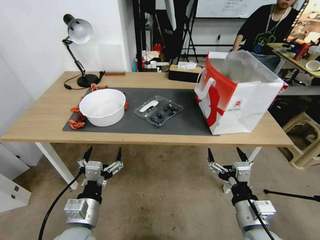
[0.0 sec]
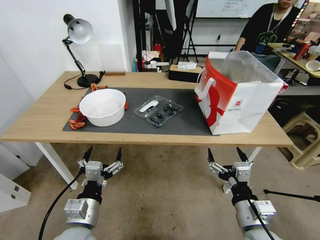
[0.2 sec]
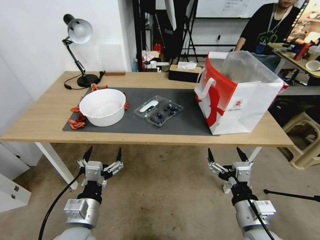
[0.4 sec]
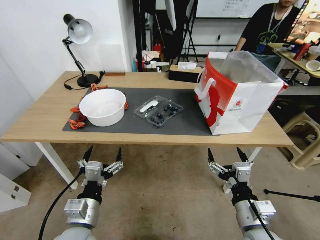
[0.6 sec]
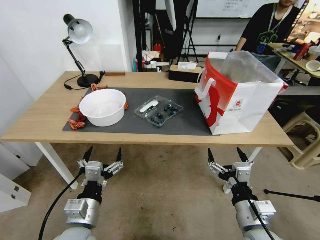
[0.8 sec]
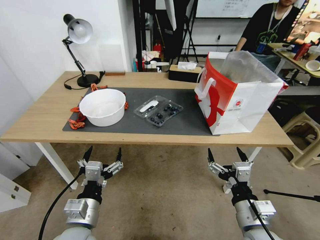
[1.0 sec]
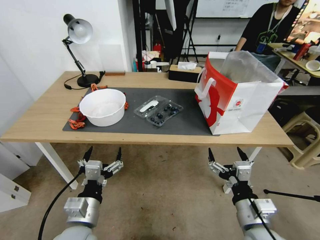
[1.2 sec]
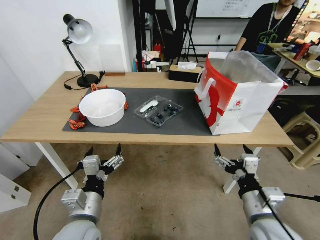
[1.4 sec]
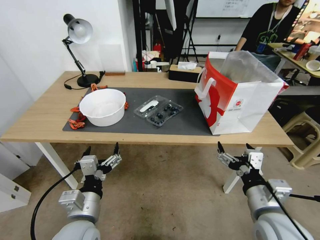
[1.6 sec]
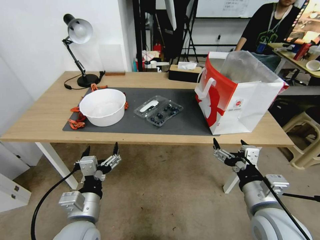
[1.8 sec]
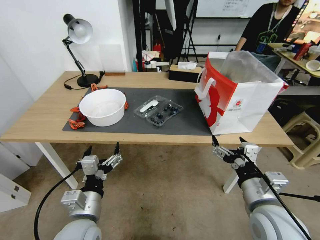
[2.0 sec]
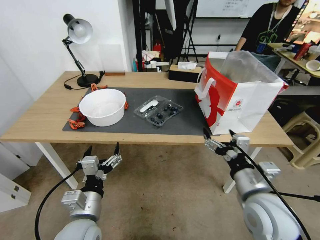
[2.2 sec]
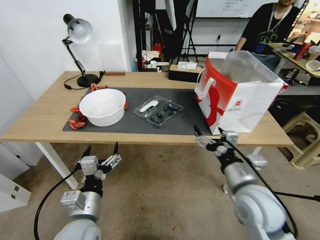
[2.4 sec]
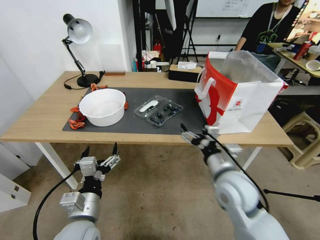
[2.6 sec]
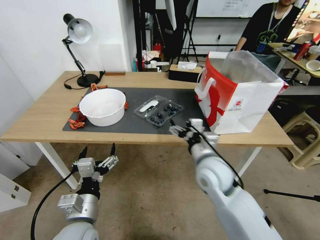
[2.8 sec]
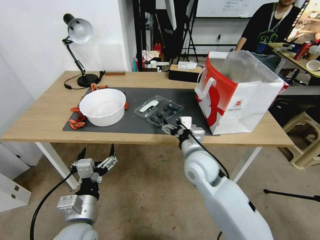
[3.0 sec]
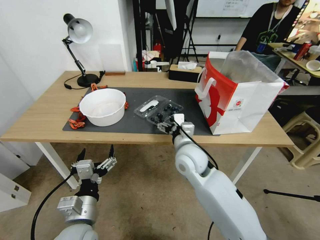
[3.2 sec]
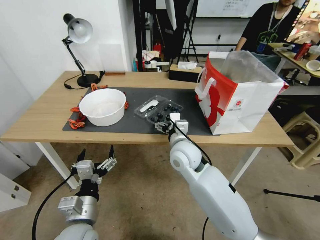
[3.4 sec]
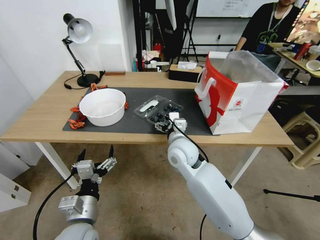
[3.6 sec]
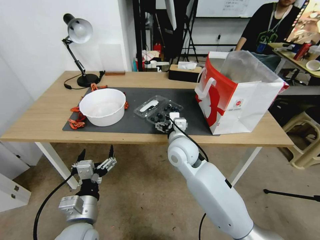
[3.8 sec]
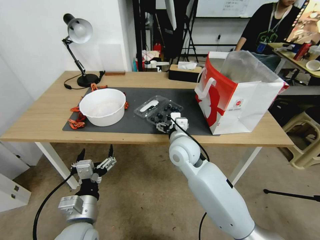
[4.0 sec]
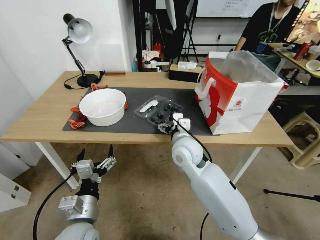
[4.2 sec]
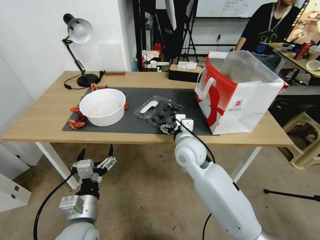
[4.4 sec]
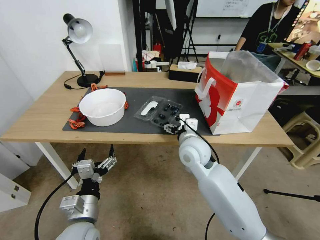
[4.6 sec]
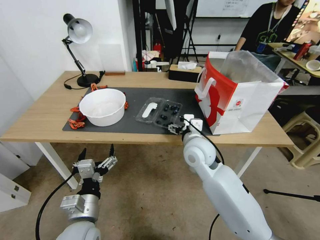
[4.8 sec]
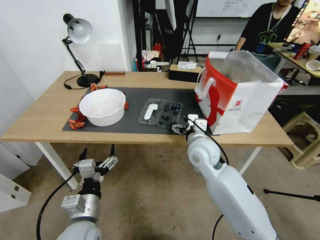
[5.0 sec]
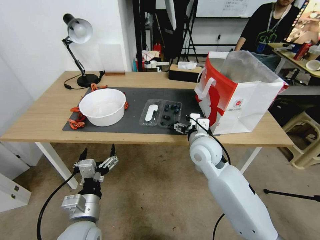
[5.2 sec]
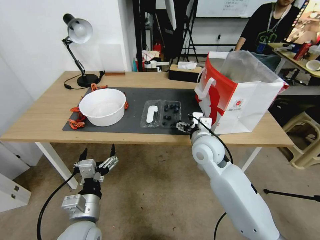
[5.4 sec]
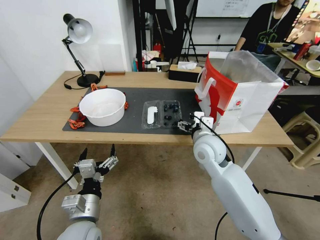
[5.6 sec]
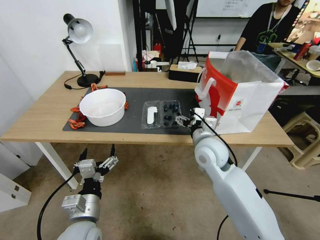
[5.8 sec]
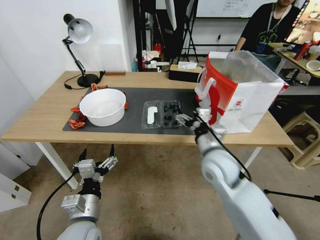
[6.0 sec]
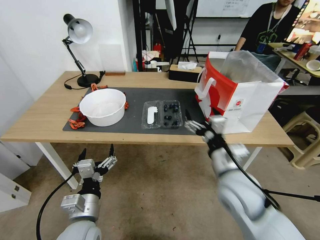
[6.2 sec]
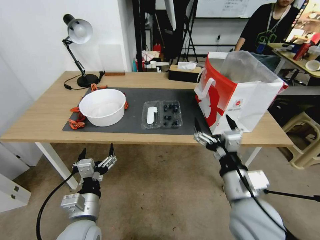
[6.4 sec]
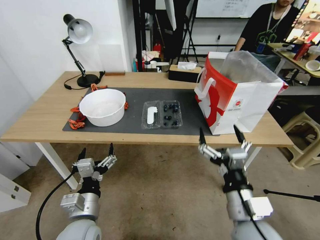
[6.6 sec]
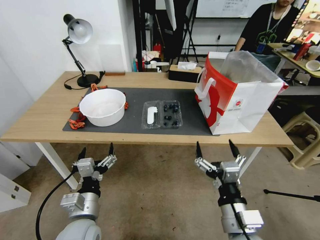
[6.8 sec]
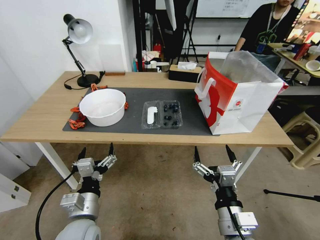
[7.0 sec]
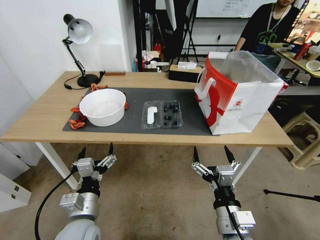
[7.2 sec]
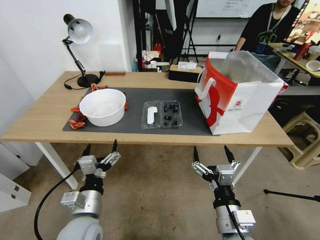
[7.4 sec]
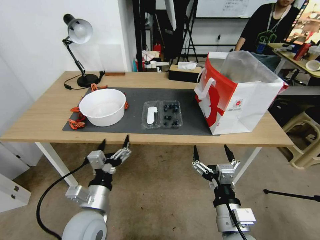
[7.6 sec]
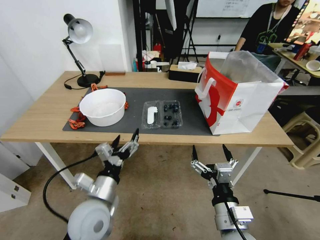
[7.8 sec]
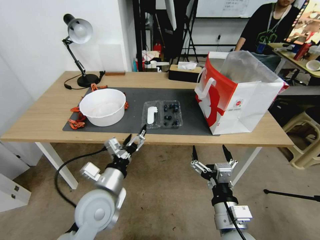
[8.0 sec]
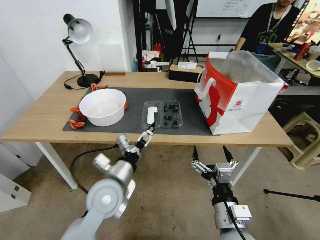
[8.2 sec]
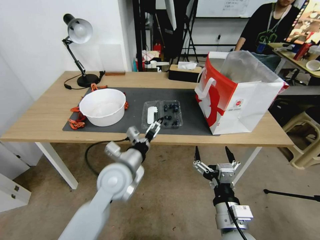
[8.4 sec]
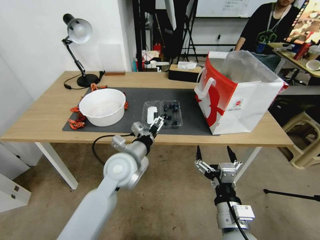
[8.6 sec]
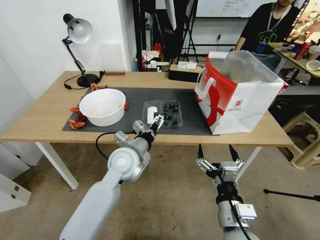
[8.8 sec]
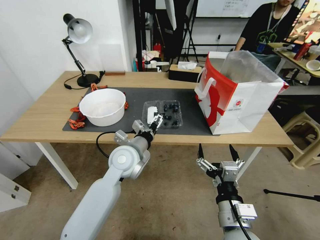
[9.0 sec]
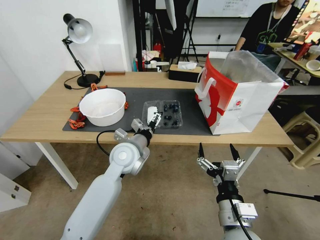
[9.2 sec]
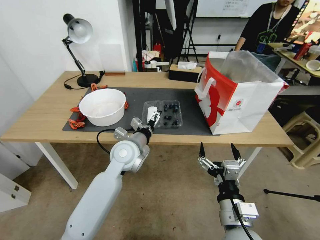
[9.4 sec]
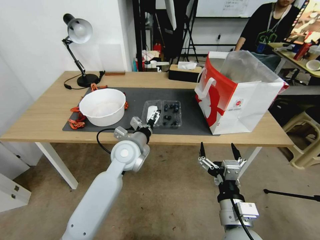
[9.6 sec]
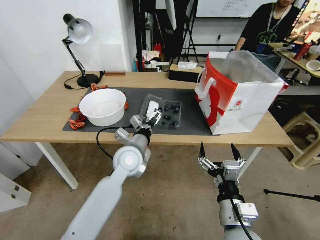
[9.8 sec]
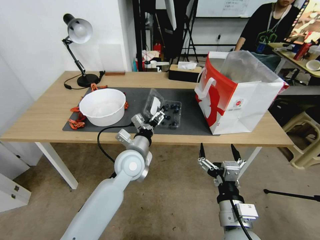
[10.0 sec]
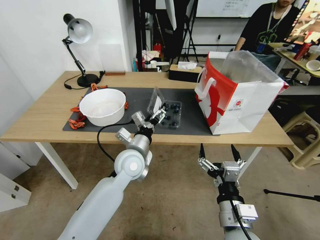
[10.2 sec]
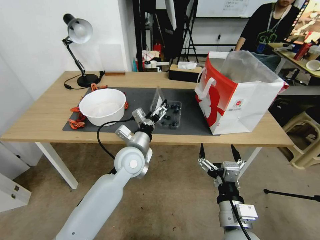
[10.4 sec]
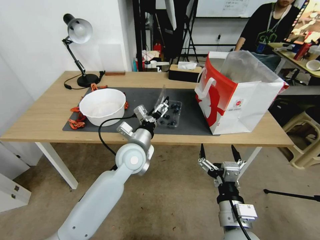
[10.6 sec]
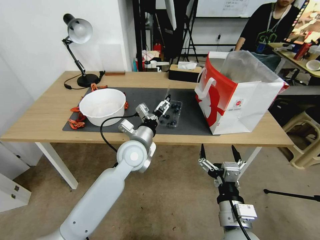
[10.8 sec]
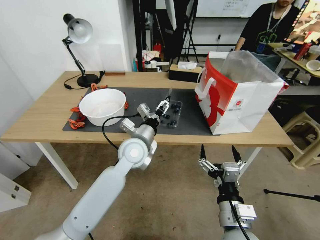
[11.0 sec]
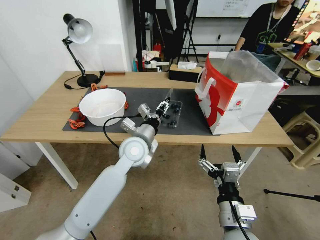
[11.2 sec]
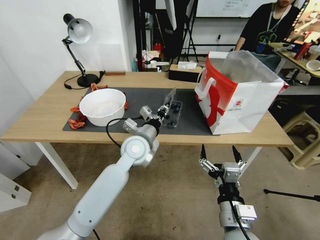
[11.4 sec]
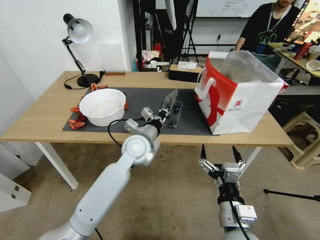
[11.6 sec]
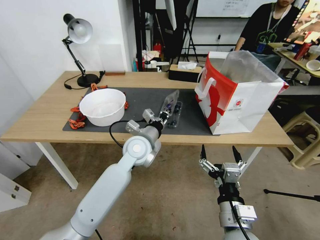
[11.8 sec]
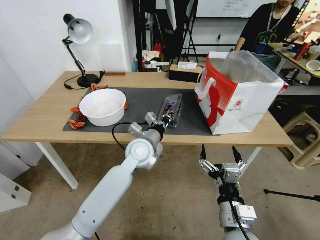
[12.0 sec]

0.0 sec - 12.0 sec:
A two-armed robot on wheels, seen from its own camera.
Task of the whole recording: Close the takeout container lid, then place the container into the takeout bag.
1.6 sec - 3.0 sec: The right gripper travels forward and to the left by some 20 cm.
3.0 sec - 4.4 sec: The right gripper ends up roughly 5 cm from where it was.
4.4 sec - 6.0 sec: The right gripper shifts roughly 5 cm to the right.
6.0 sec - 7.6 sec: The right gripper heads backward, covering some 20 cm.
7.6 sec - 9.0 sec: The left gripper travels forward and to the right by roughly 20 cm.
10.4 sec - 12.0 sec: The left gripper closes its fingers.

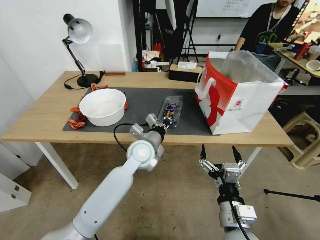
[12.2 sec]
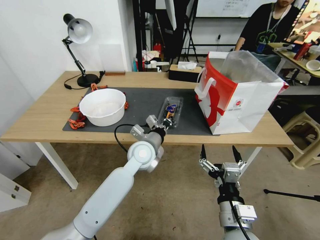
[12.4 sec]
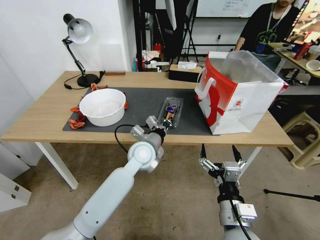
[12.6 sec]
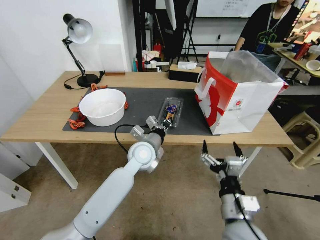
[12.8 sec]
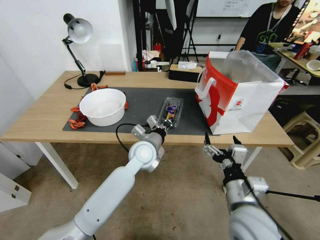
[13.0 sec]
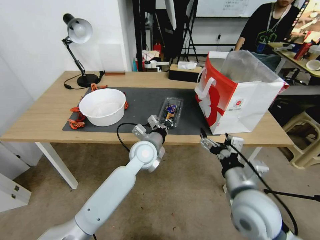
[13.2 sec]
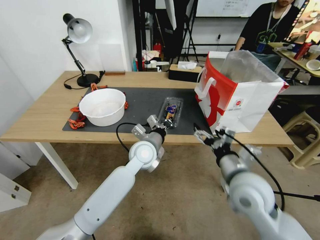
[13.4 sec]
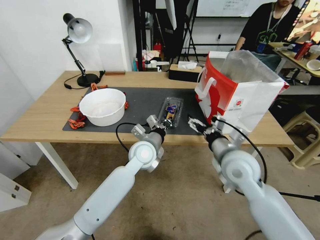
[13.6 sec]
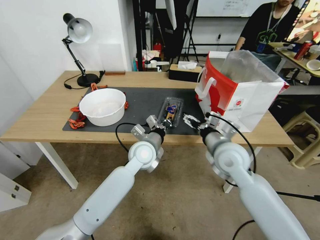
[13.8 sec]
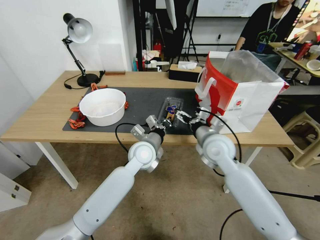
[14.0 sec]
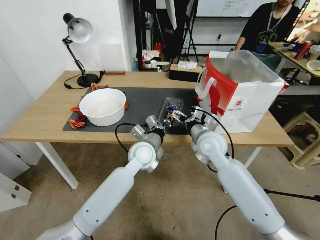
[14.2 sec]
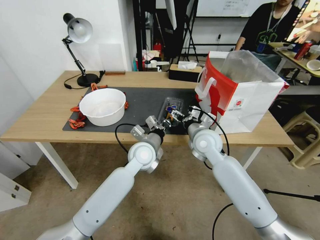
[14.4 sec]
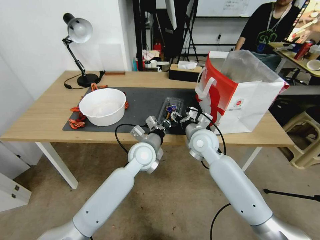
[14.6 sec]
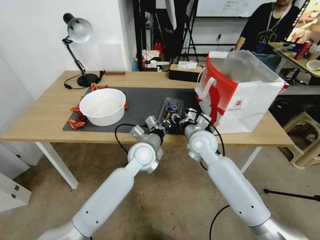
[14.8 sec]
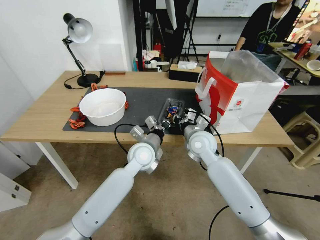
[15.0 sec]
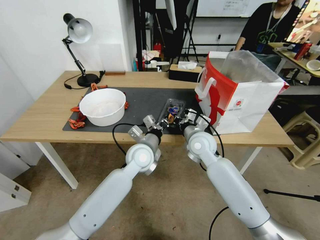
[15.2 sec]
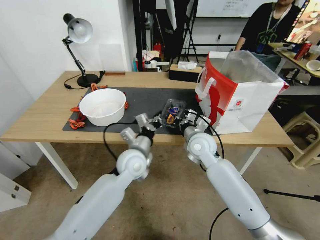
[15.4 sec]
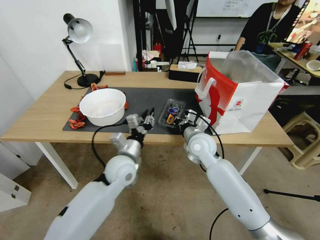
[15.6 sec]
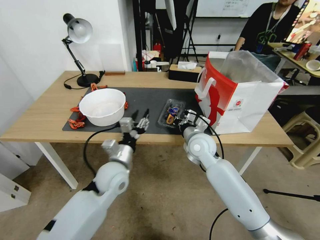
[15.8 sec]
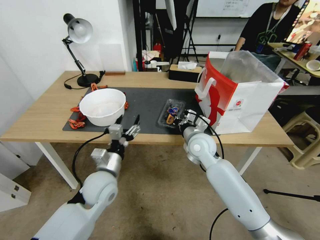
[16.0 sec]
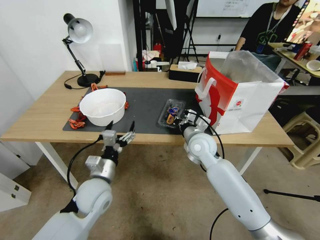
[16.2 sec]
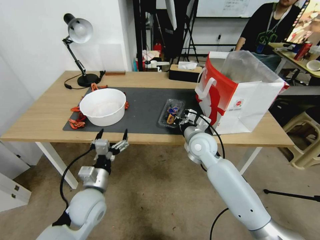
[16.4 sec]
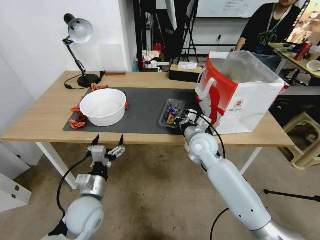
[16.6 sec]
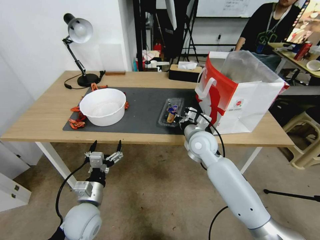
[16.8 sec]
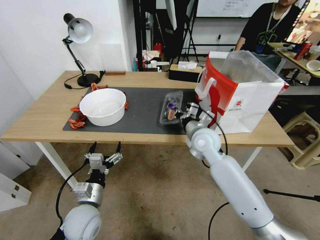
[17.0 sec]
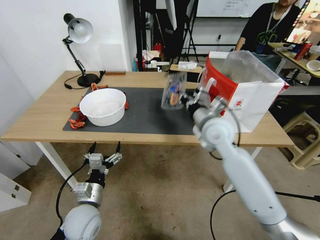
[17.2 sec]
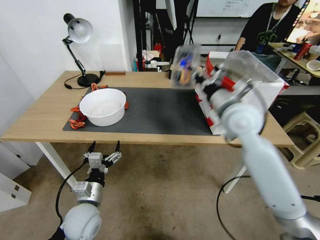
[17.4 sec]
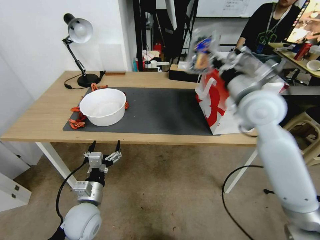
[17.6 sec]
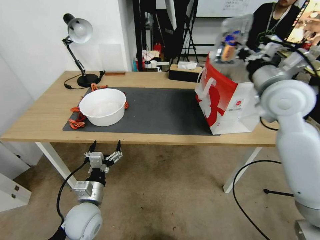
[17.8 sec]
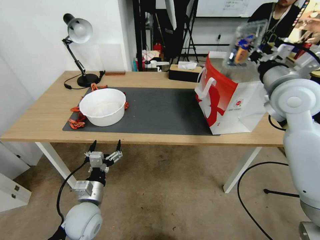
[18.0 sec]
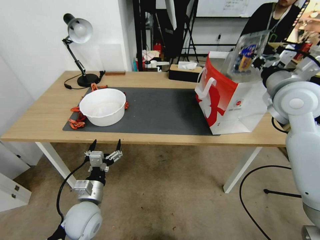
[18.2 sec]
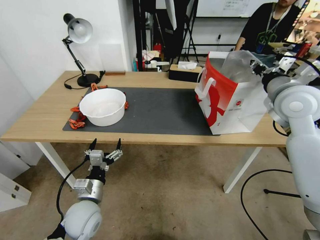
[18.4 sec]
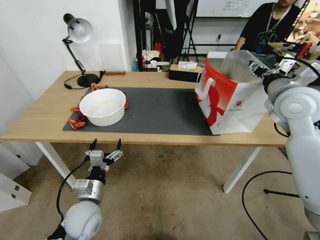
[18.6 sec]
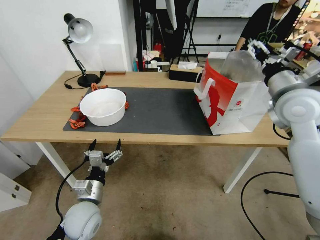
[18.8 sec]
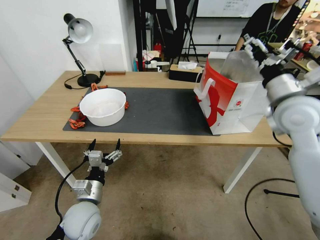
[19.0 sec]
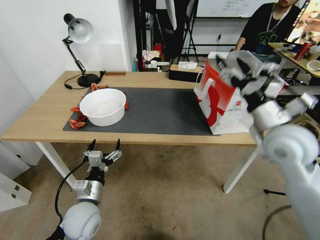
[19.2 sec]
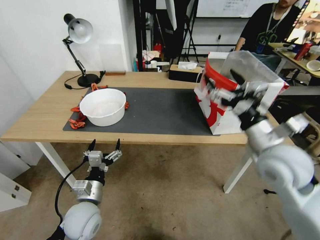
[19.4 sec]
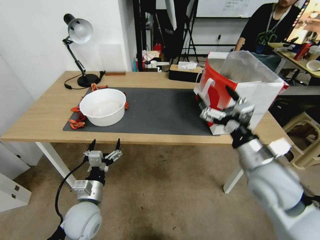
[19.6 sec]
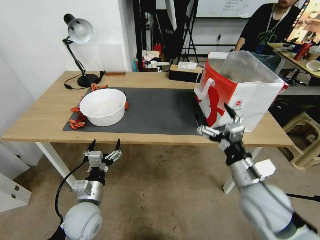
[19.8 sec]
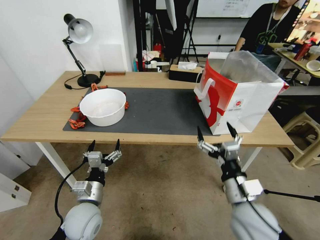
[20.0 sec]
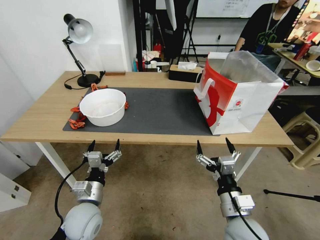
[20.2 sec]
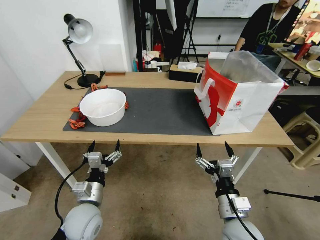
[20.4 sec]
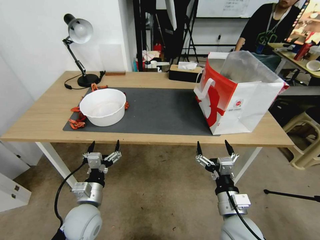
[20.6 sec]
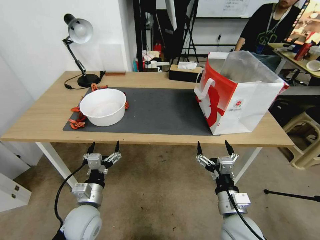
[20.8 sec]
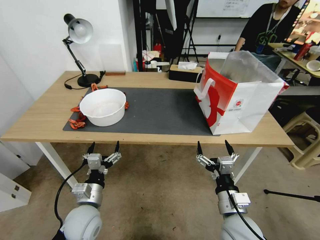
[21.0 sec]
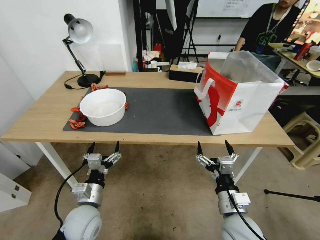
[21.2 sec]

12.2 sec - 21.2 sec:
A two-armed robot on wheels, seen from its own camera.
Task of the whole recording: Close the takeout container lid, then place the container into the takeout bag.
12.2 sec - 13.8 sec: The right gripper shifts approximately 20 cm forward.
13.8 sec - 15.2 sec: The right gripper is displaced forward and to the left by roughly 10 cm, and closes.
15.2 sec - 16.6 sec: The left gripper travels backward and to the left by approximately 20 cm, and opens.
16.6 sec - 18.2 sec: The right gripper is displaced upward and to the right by some 30 cm.
18.2 sec - 19.8 sec: The right gripper heads backward, downward and to the left, covering approximately 25 cm, and opens up.
19.8 sec - 21.2 sec: The right gripper goes about 10 cm downward.
